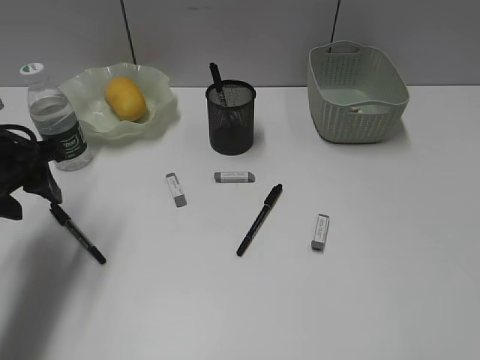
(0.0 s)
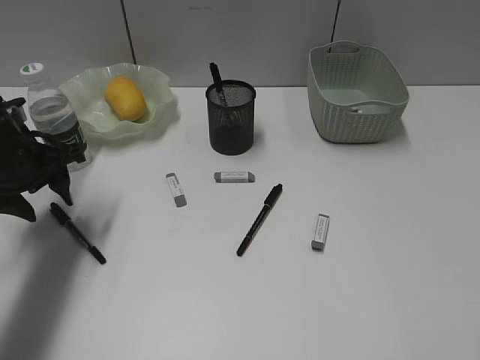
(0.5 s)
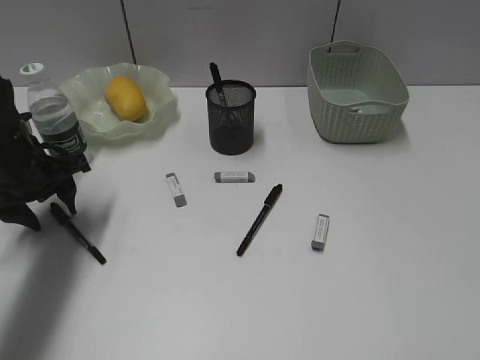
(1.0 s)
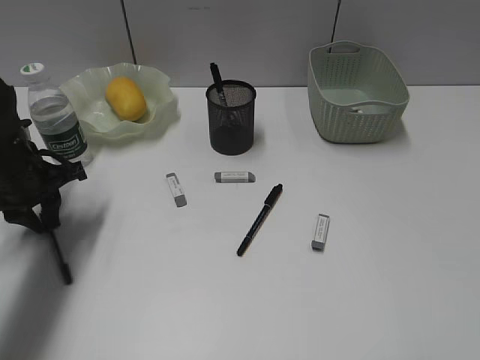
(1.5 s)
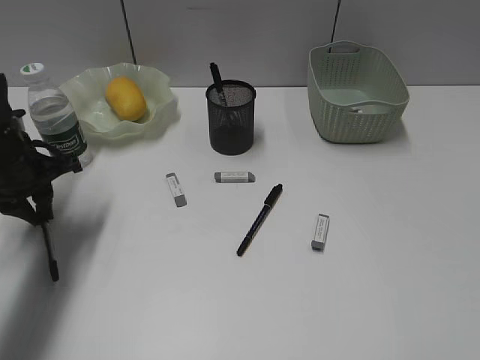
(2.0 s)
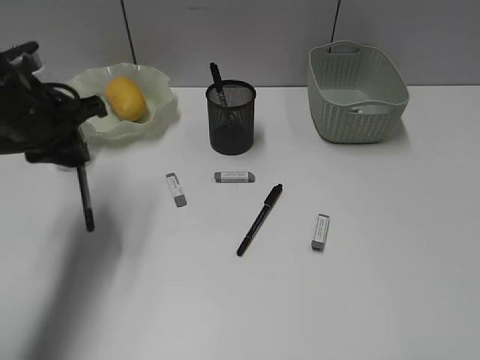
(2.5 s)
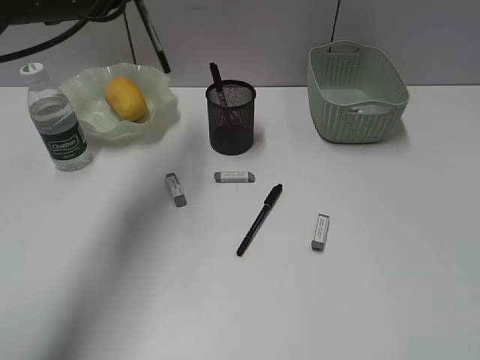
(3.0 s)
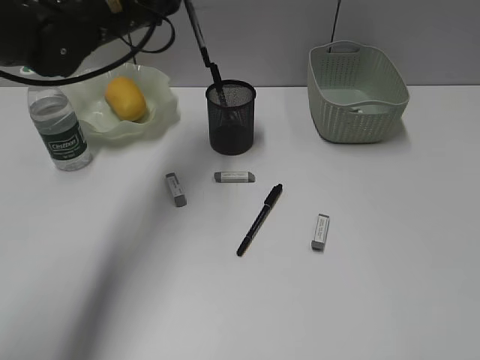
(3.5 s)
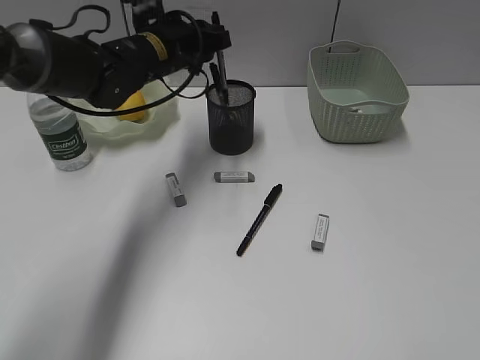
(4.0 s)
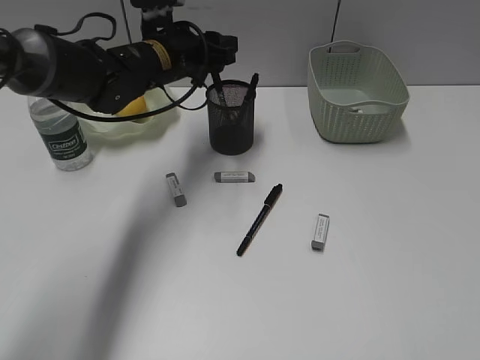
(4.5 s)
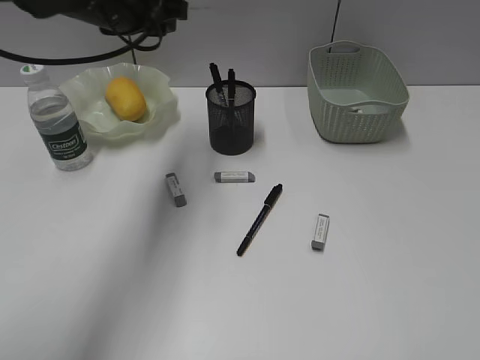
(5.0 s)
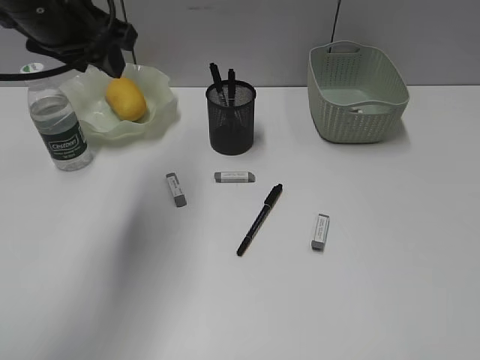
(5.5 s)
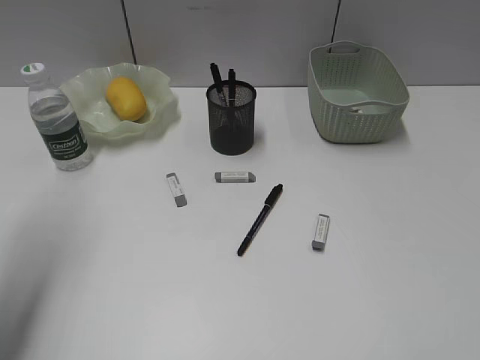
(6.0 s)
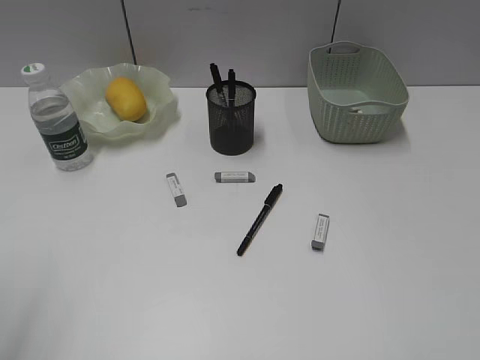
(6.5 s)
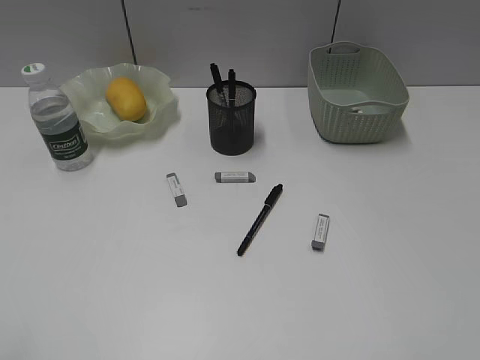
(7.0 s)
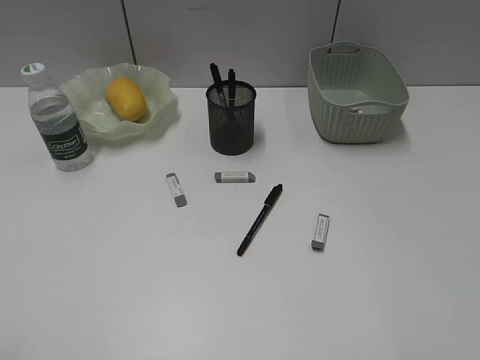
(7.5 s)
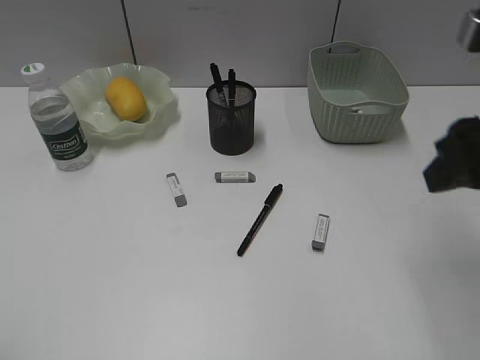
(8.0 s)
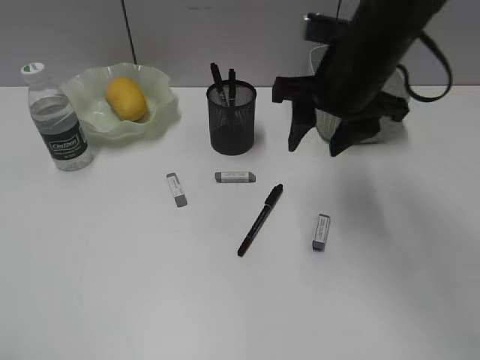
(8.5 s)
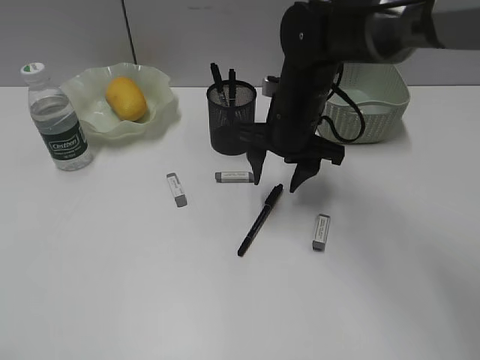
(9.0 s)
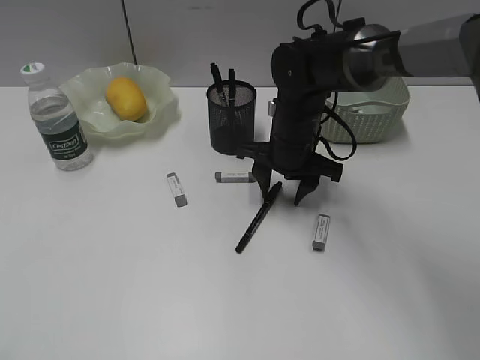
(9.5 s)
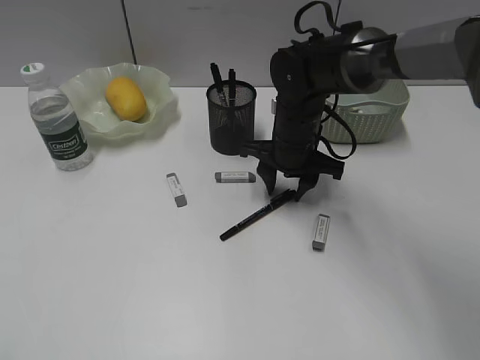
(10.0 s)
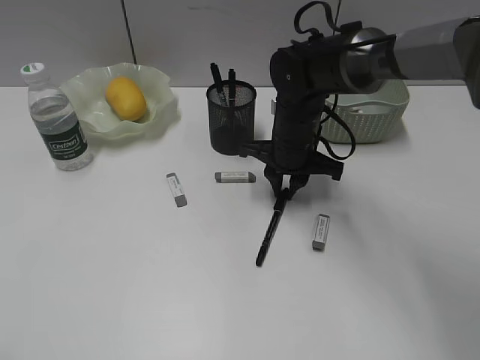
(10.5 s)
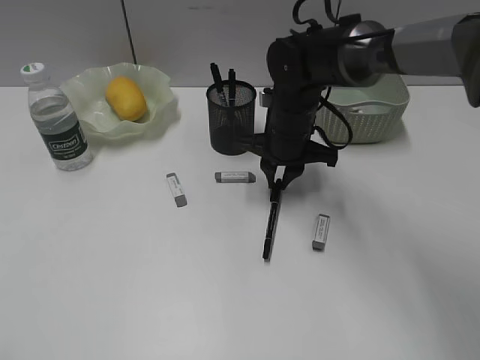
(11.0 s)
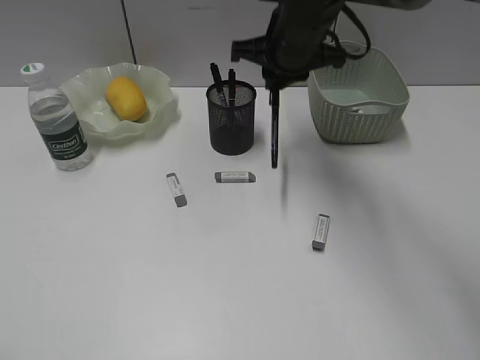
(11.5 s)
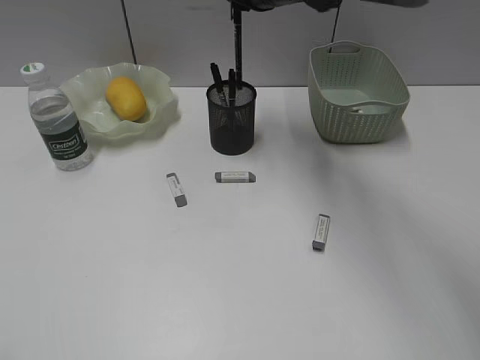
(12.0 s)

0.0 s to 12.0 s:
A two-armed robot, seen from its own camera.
Step, 2.0 to 4.5 s: Place the black pen in pen holder with left gripper.
Step, 5.0 to 11.0 s: Grasp the black pen with right gripper.
0.0 to 2.0 s: The left gripper ends up some 5 cm from where it was, and closes its fingers.
2.0 to 4.0 s: The left gripper moves to the right and forward, about 20 cm.
4.0 to 6.0 s: The left gripper travels backward, to the left and upward by some 30 cm, and opens up.
6.0 to 8.0 s: The right gripper travels forward and to the left by approximately 20 cm; the left gripper goes some 20 cm backward.
8.0 to 10.0 s: The right gripper is displaced downward, forward and to the left by about 30 cm.
10.0 to 12.0 s: The right gripper moves upward, approximately 15 cm, and closes its fingers.

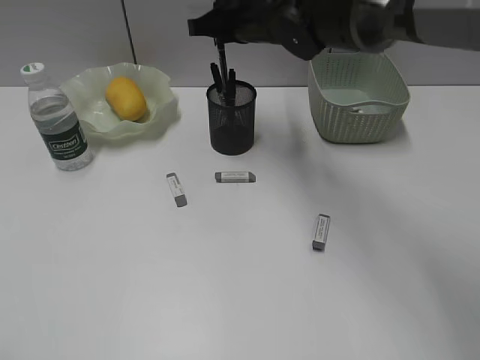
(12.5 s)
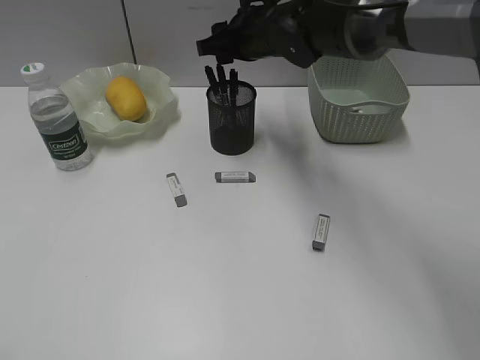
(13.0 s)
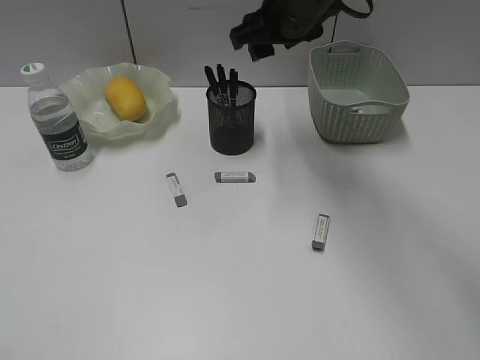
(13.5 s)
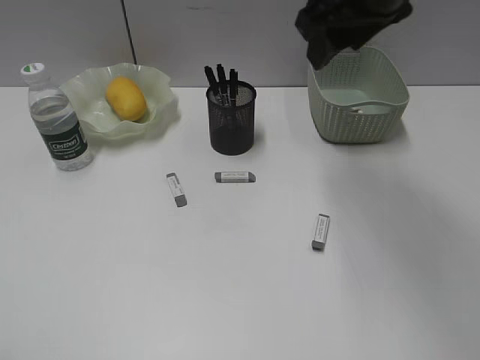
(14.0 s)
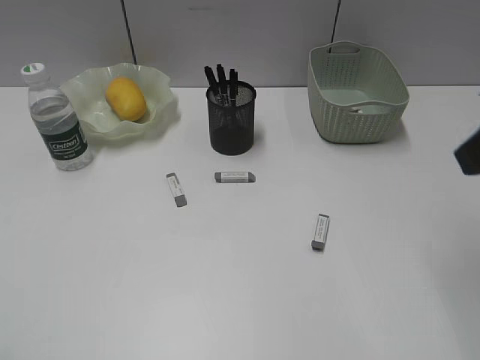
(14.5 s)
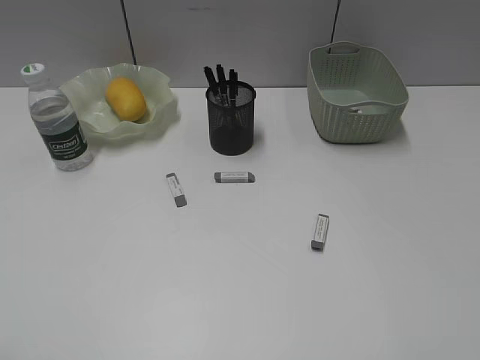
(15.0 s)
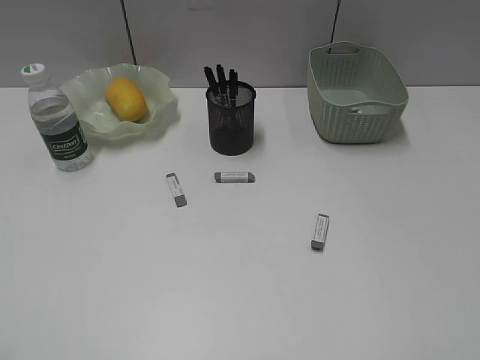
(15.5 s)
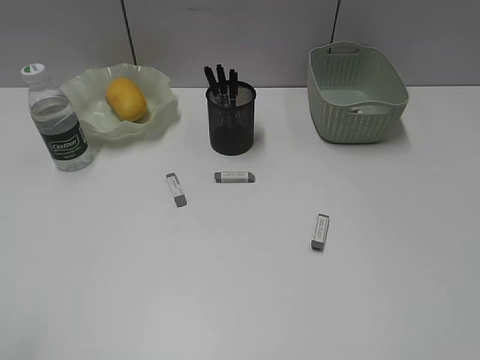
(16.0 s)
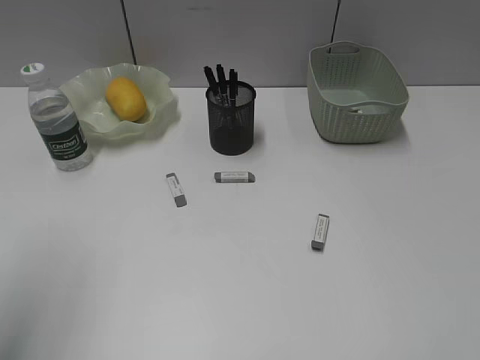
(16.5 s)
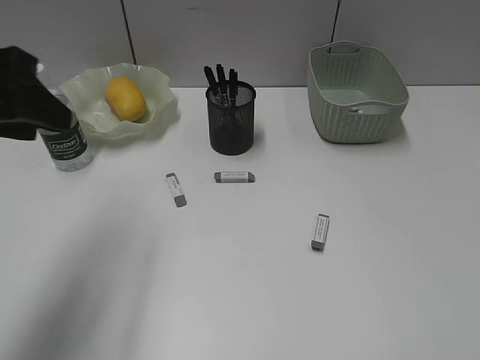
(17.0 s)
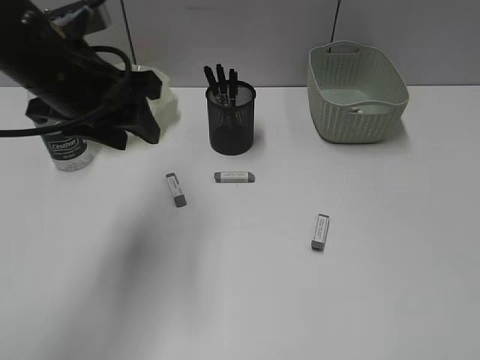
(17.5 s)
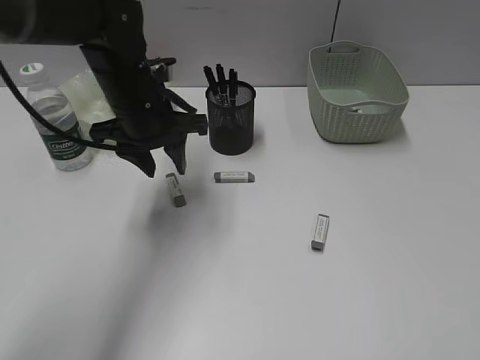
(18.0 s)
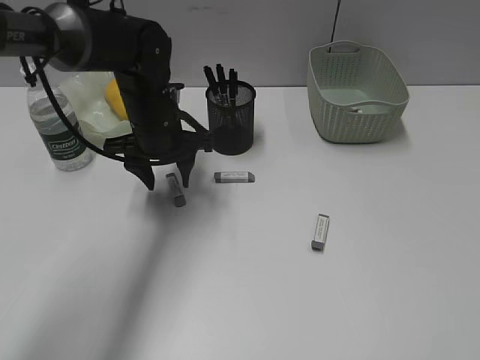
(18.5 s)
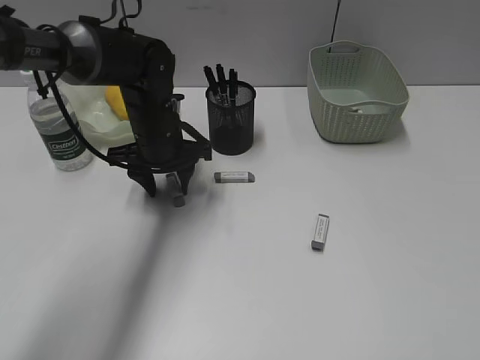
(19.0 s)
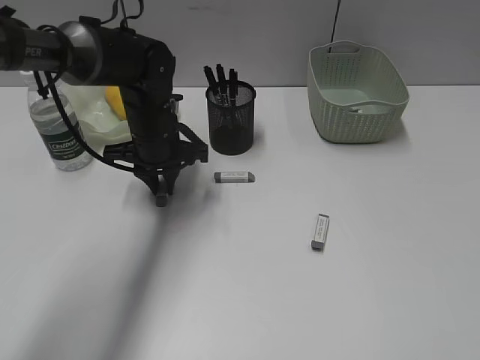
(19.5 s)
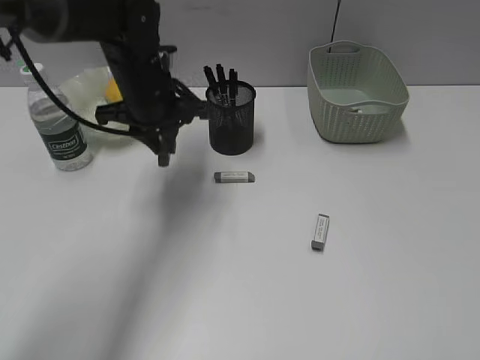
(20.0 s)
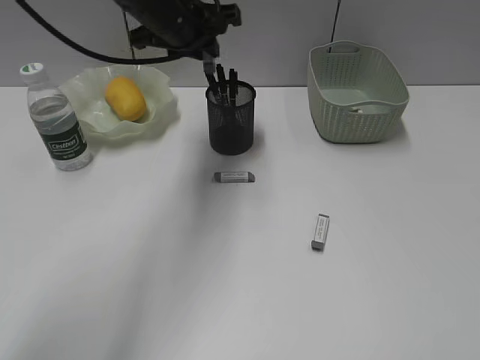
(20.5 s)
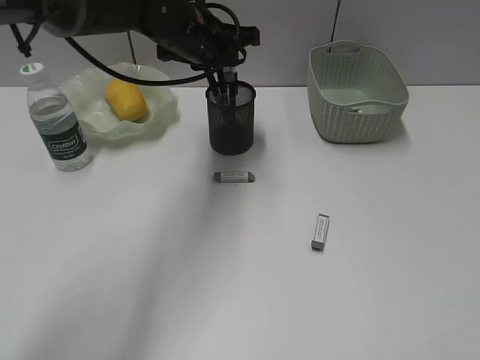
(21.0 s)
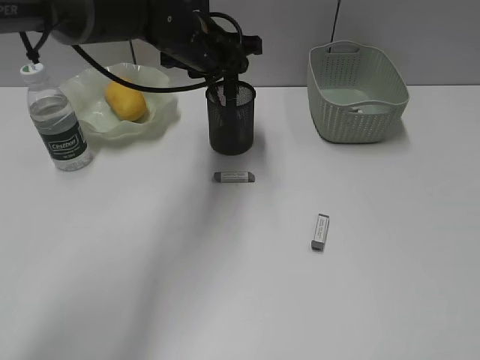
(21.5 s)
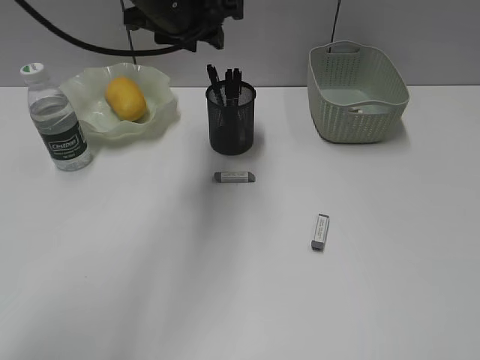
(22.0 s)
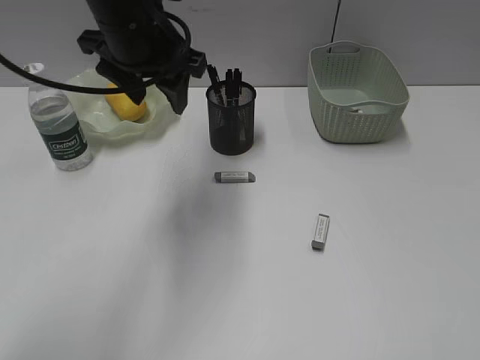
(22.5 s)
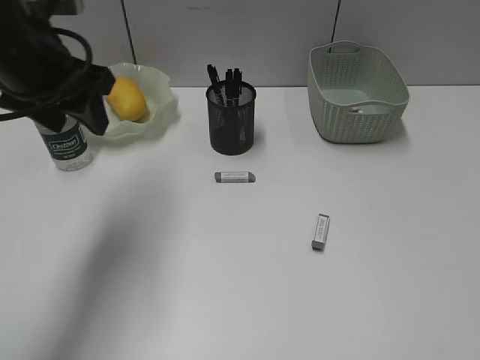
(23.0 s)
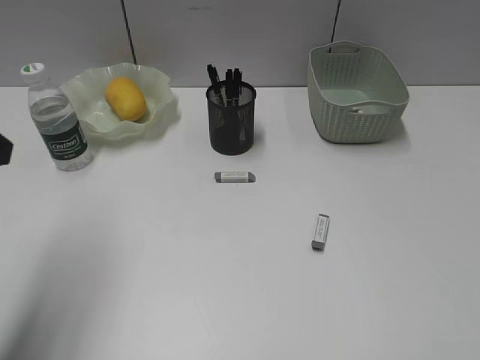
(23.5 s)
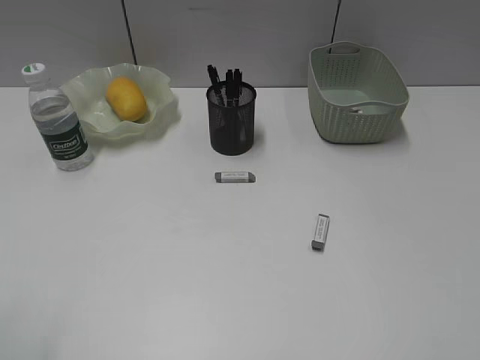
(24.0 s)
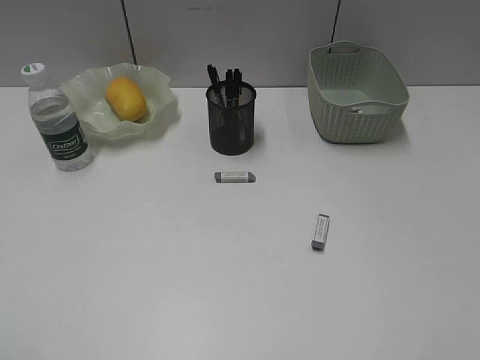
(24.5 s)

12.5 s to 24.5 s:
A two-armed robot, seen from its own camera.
Step, 13.5 to 19.0 s: Grasp the eraser with left gripper.
Step, 19.5 to 21.5 s: Place the eraser in pen holder with left gripper.
12.5 to 14.5 s: The right gripper travels backward and to the right by roughly 35 cm, and opens its fingers.
14.5 to 16.5 s: The left gripper is displaced forward by about 15 cm.
16.5 to 18.5 s: The left gripper shifts approximately 35 cm forward, to the right and downward.
18.5 to 20.5 s: The left gripper shifts approximately 10 cm upward, and closes its fingers.
20.5 to 22.5 s: The left gripper heads backward, covering about 5 cm, and opens.
22.5 to 24.5 s: The left gripper heads backward and to the left, covering roughly 40 cm.

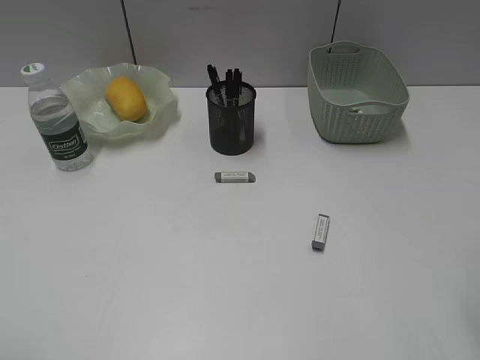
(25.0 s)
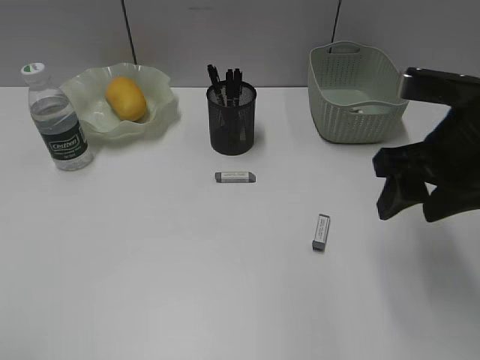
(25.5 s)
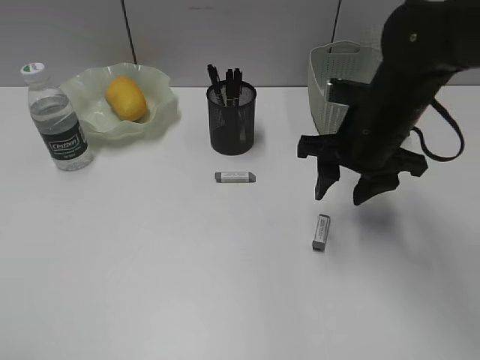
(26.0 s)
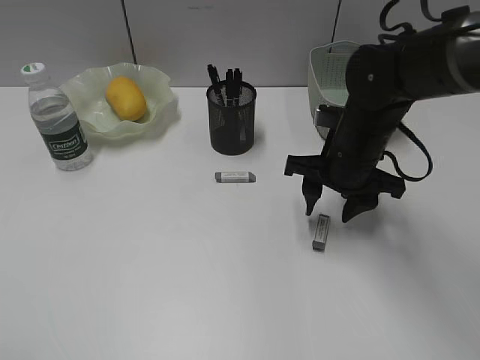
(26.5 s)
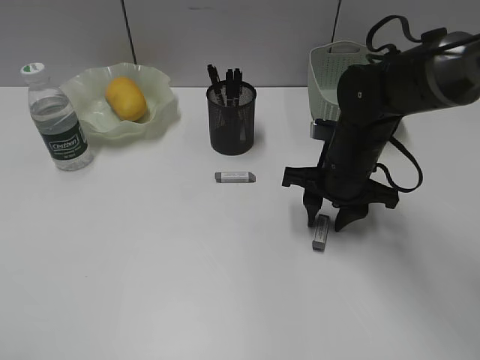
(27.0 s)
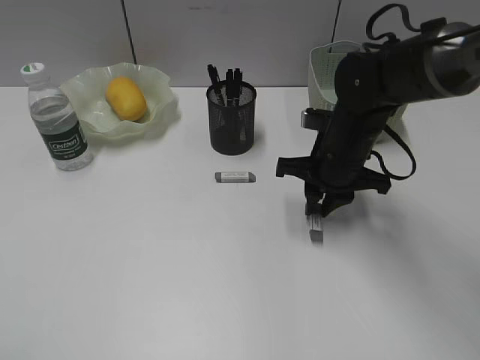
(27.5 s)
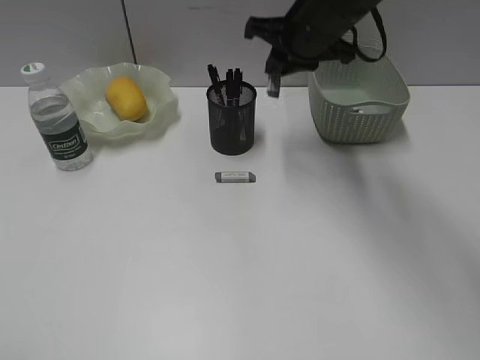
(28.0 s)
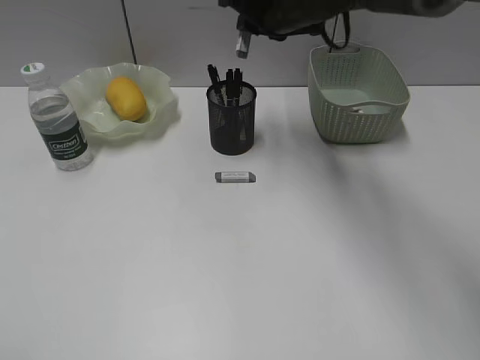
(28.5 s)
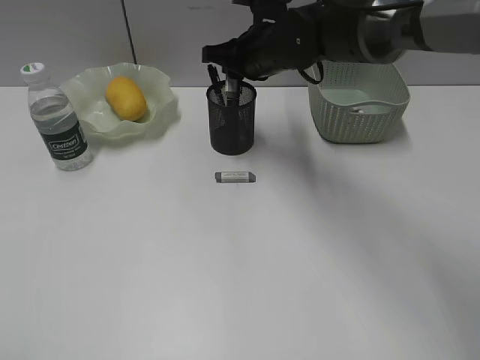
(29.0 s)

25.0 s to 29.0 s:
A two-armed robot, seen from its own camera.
Step, 25.0 to 27.0 s: Grasp the eraser with right gripper.
25.0 to 27.0 s: The right gripper moves forward, downward and to the left, about 30 cm.
27.0 to 29.0 s: The right gripper shifts some 15 cm forward, to the left and upward, and closes.
